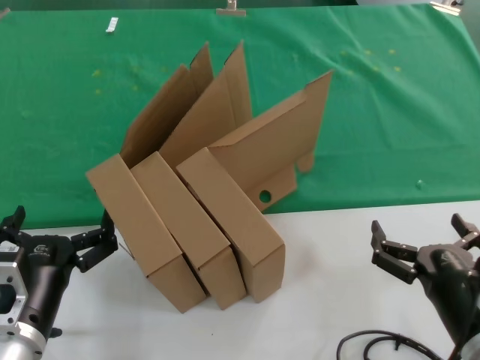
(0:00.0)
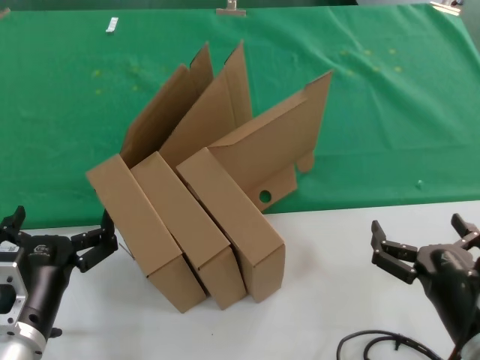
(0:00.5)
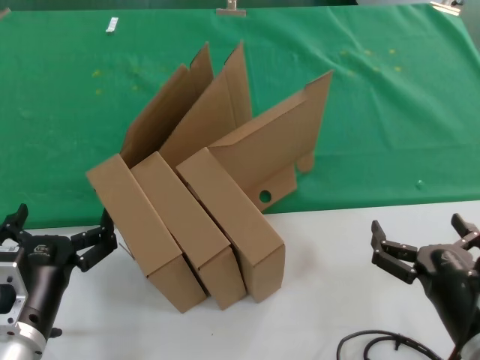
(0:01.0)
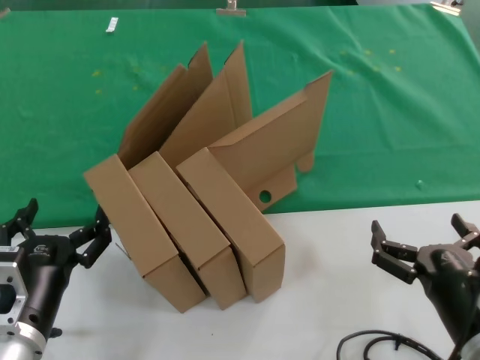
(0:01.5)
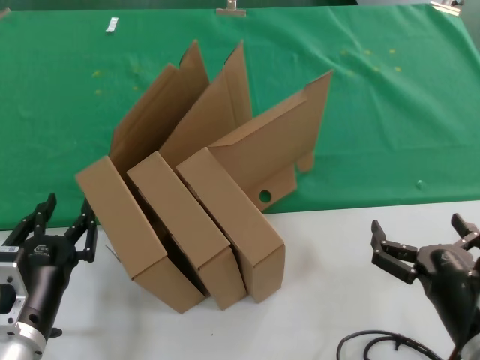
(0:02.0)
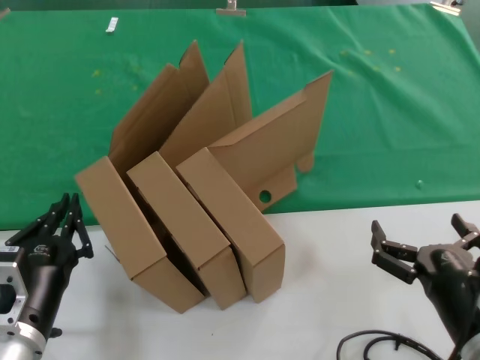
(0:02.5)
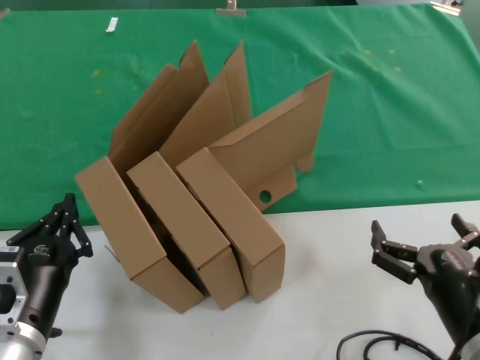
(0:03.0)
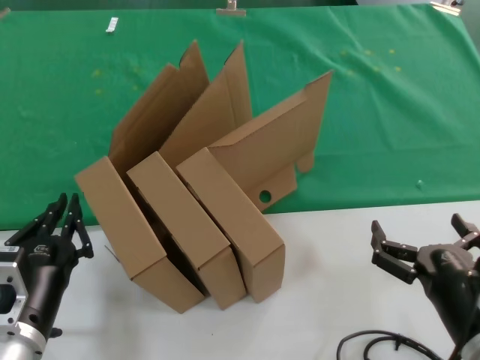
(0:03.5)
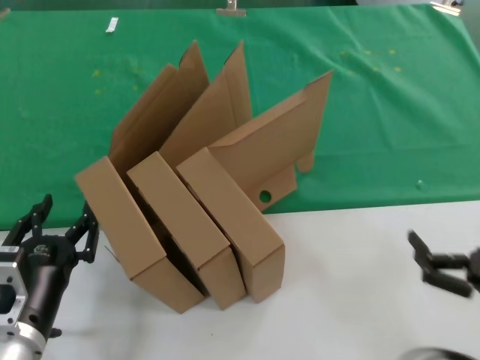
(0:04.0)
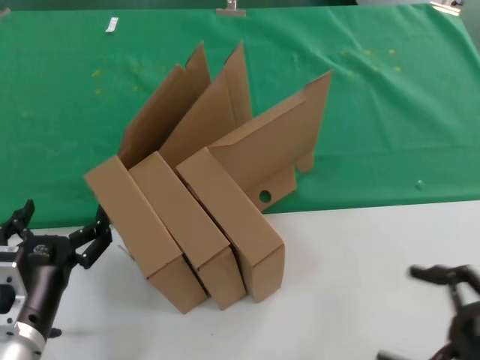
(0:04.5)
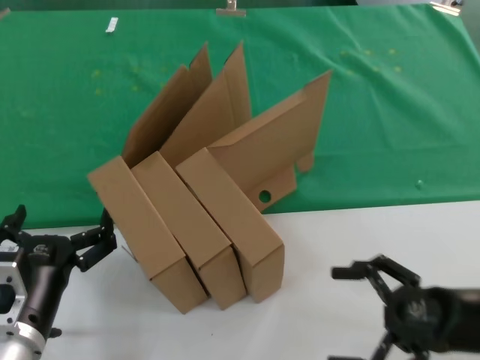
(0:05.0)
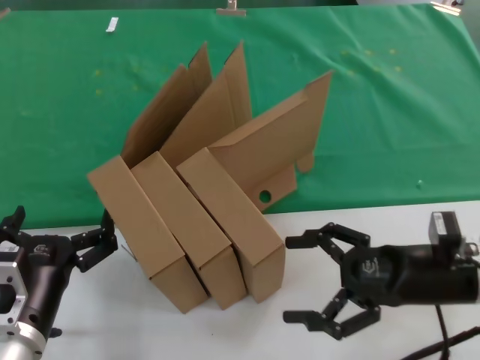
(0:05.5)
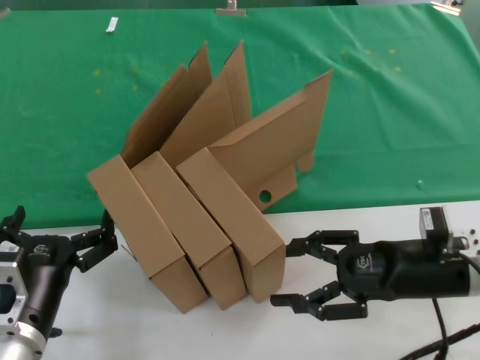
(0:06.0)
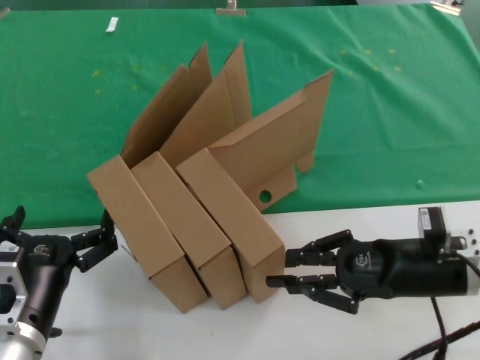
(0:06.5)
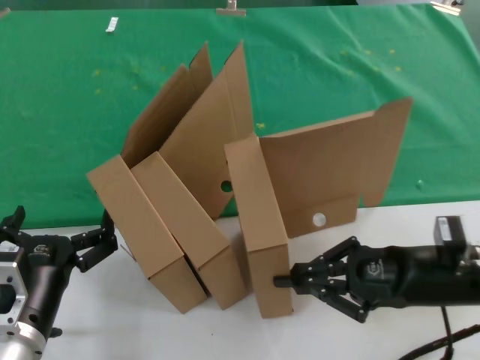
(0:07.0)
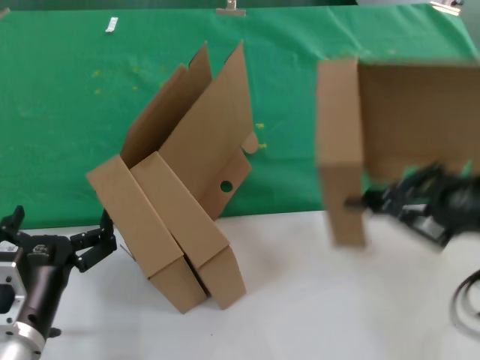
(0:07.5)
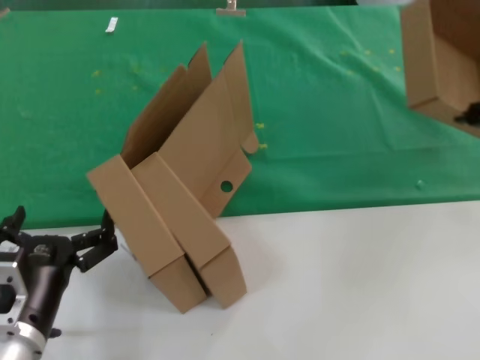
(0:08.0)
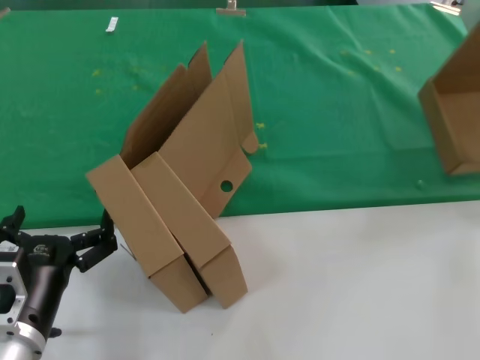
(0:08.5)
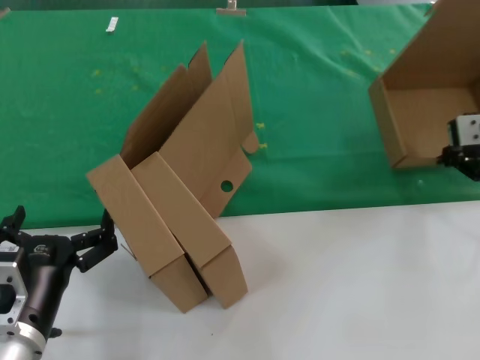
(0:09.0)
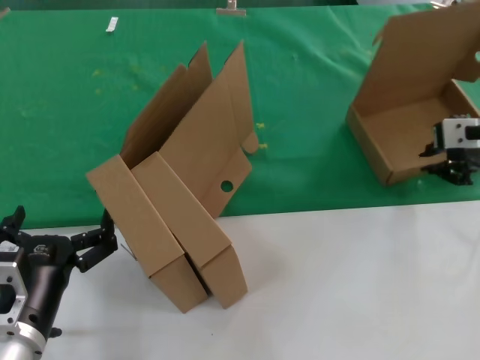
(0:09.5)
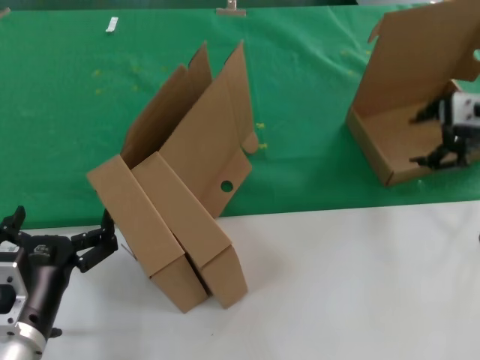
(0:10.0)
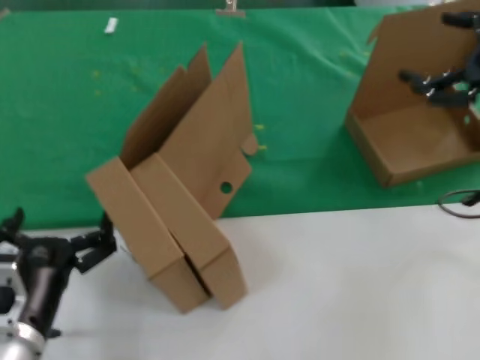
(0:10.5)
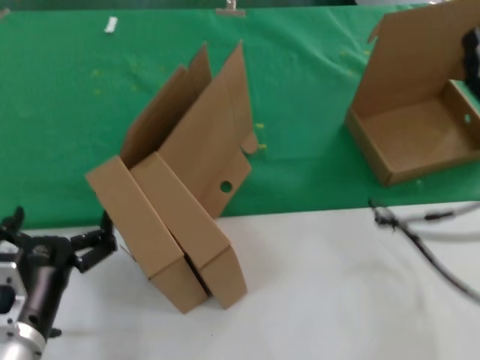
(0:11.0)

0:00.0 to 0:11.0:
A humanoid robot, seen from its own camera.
Task of the whole recording: pick up the paper box and put it at the back.
Step, 0:00.0 to 0:06.5: Grasp the paper box.
Step, 0:07.0 to 0:09.5: Place the paper box on the table.
0:00.0 to 0:03.5: Both hands stay about where they are.
0:03.5 to 0:05.5: The right hand travels forward and to the right by roughly 15 cm.
0:05.5 to 0:07.5: The right hand moves upward and to the right, roughly 15 cm.
0:07.5 to 0:09.0: The right hand moves forward and upward, roughly 15 cm.
0:09.0 to 0:11.0: The right hand moves downward and backward, about 20 cm.

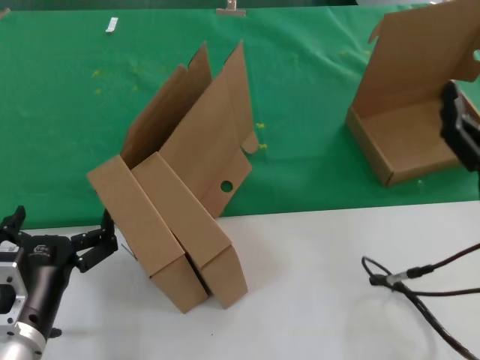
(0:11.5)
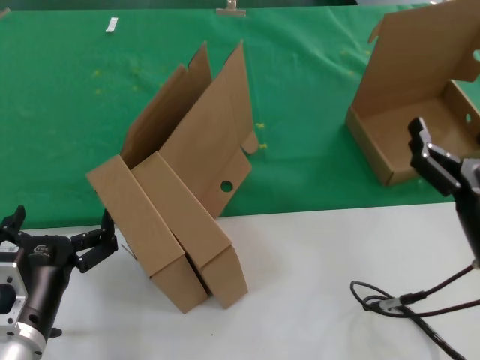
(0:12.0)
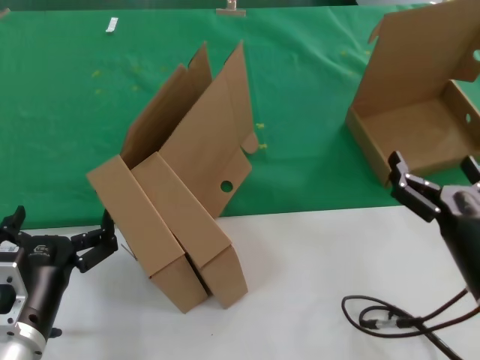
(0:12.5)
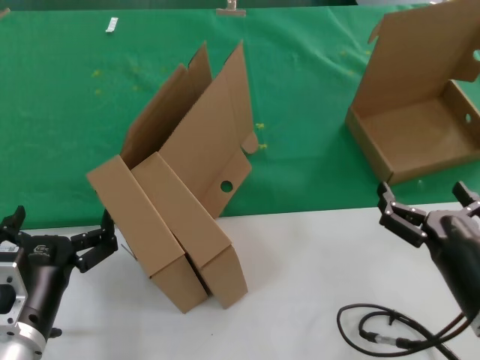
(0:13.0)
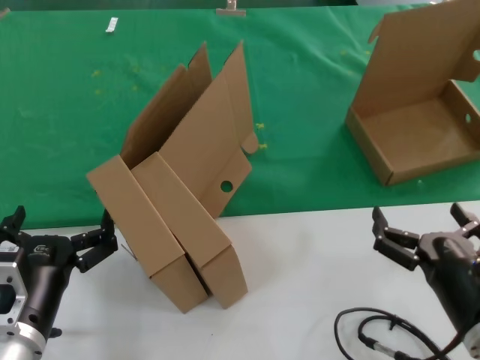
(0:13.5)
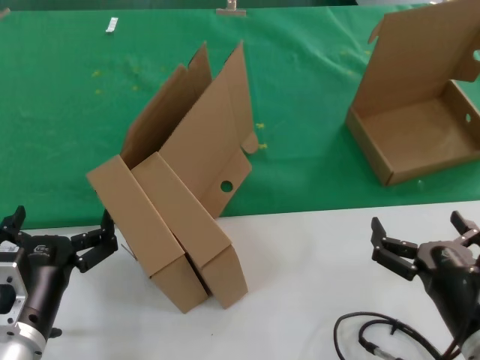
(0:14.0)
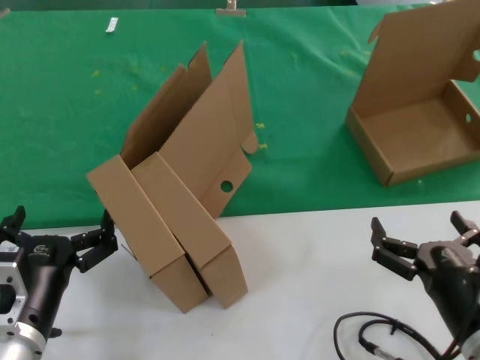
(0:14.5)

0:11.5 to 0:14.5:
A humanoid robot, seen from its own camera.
Task of the whole recording: pick up the paper box and put it at the back.
0:13.0 to 0:14.5: The hands stay close to where they were, moving slightly.
